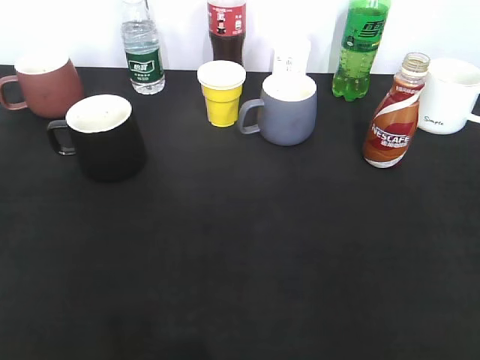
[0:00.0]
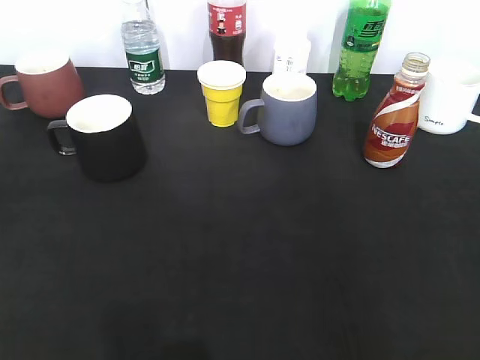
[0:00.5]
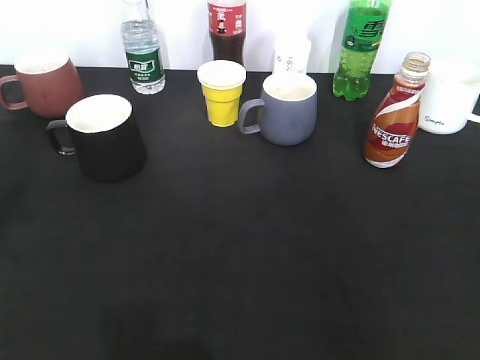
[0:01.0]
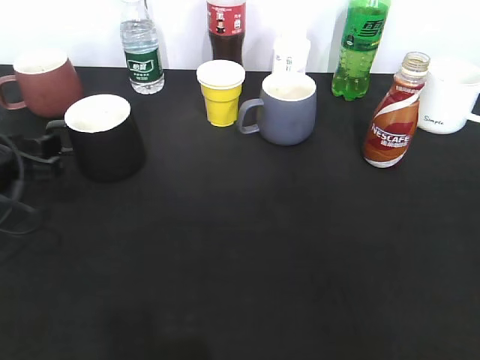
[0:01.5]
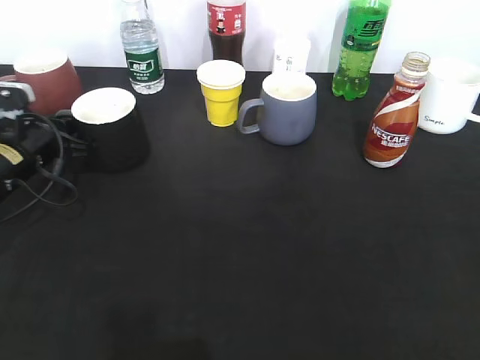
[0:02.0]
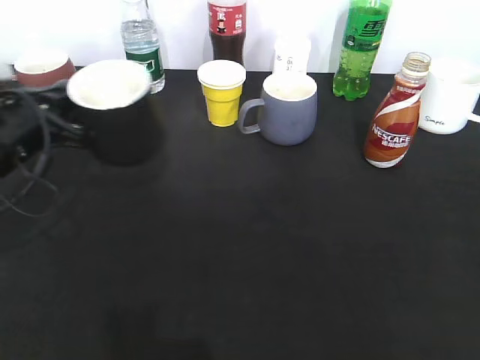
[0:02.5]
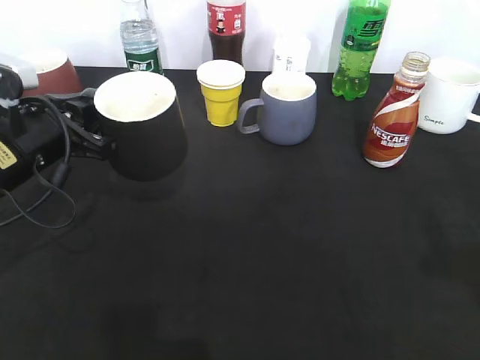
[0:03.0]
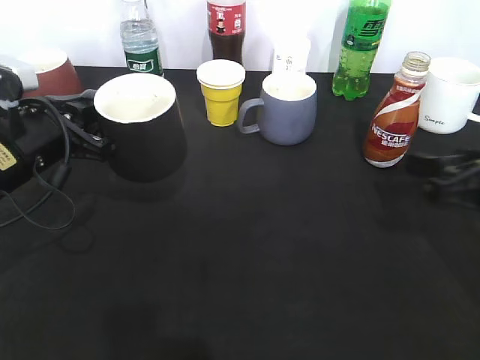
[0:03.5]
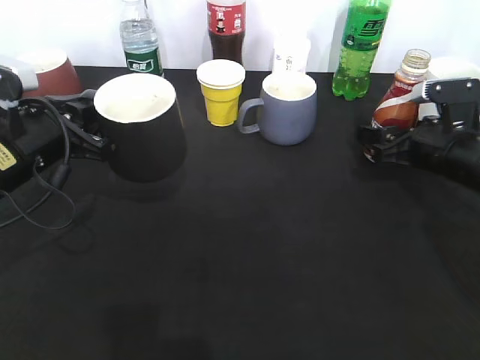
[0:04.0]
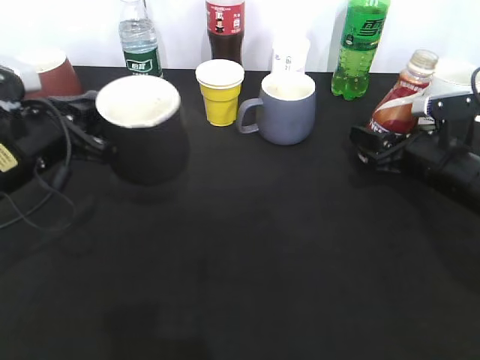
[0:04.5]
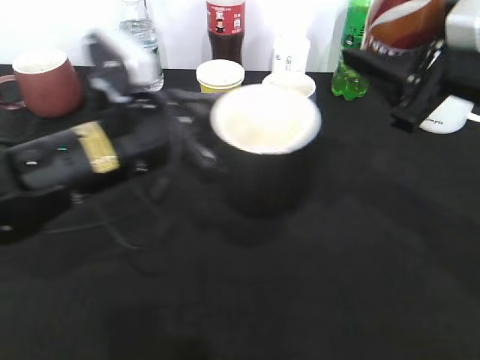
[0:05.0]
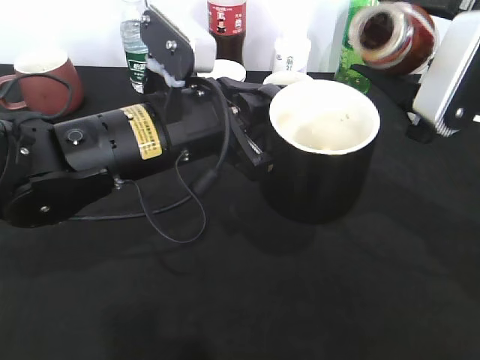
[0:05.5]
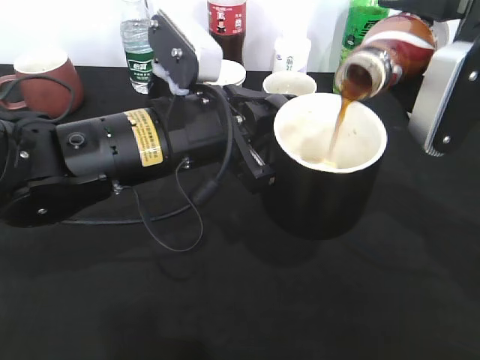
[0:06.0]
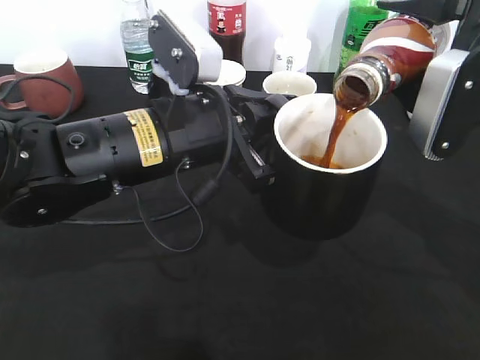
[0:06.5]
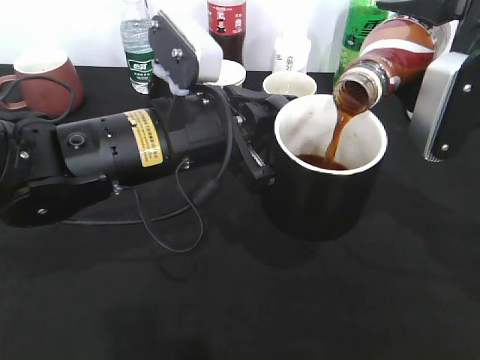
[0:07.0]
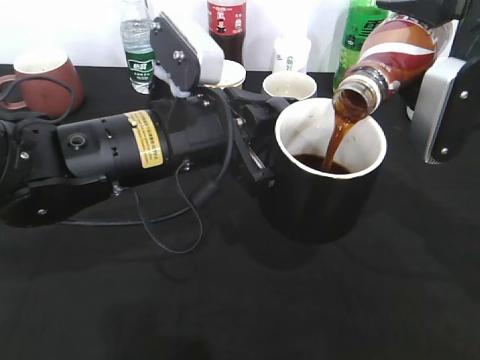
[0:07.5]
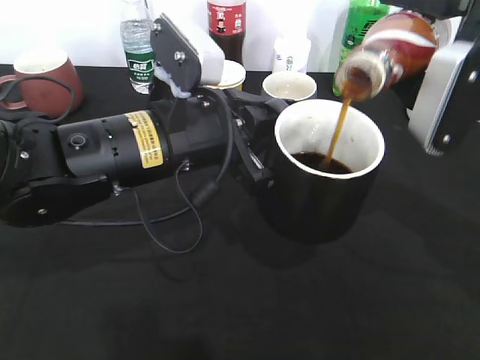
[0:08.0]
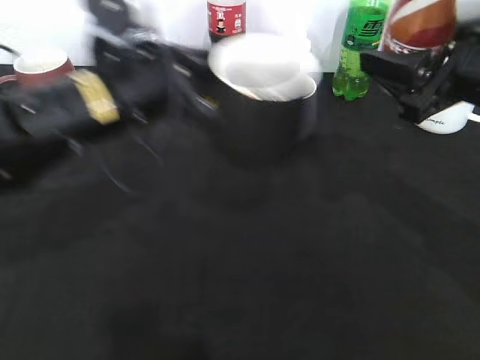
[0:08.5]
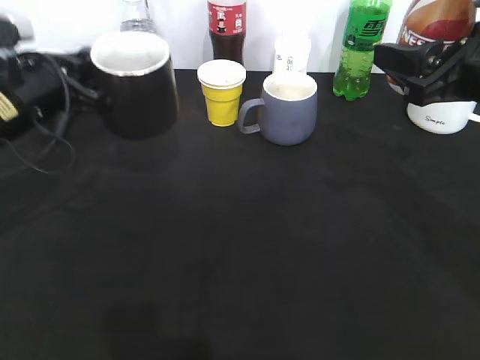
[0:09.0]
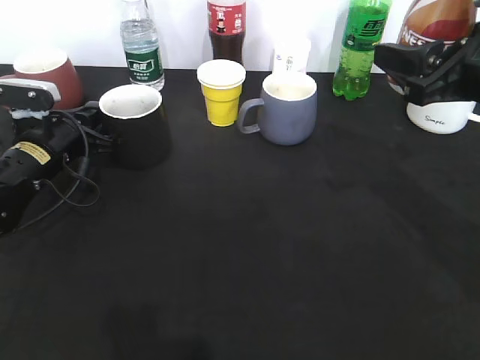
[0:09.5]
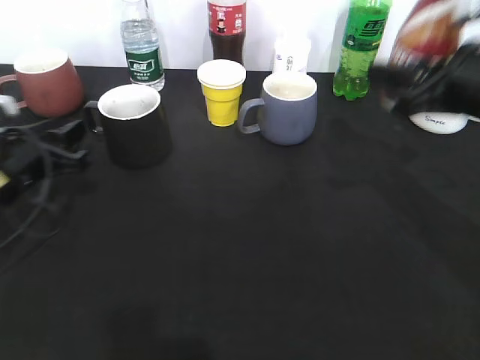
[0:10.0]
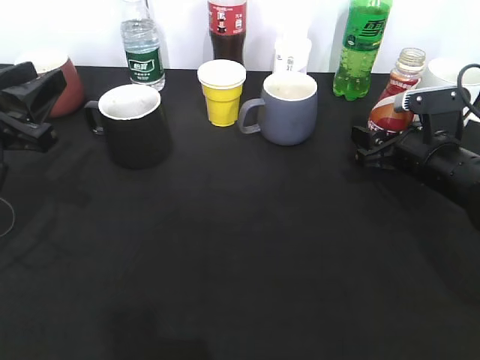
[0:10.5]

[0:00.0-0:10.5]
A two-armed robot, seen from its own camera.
Step, 0:00.0 to 0:02.0: Grasp the black cup with left gripper.
Step, 0:03.0 to 0:04.0: Grasp the bottle with coffee with right gripper.
Step, 0:04.5 to 0:08.5: Pour the coffee from bottle to cup with right gripper.
Step, 0:09.0 to 0:10.0: Place the black cup on the table with left gripper.
0:00.0 to 0:02.0: The left gripper goes approximately 40 cm forward and downward, and closes.
0:02.0 to 0:04.0: The left gripper moves backward and upward, about 10 cm, while the right gripper travels forward and downward by some 35 cm.
0:04.0 to 0:06.5: The right gripper shifts some 15 cm upward and backward, while the left gripper heads to the right, covering approximately 15 cm.
0:06.5 to 0:08.5: The left gripper ends up roughly 5 cm from where it was.
0:08.5 to 0:10.5: The right gripper goes approximately 15 cm downward and forward. The left gripper travels to the left by roughly 15 cm, and opens its fingers.

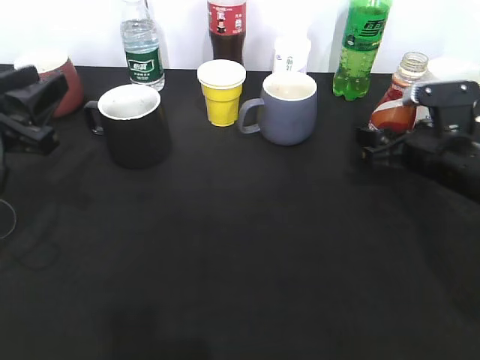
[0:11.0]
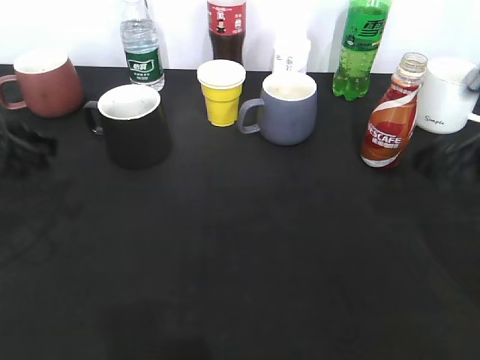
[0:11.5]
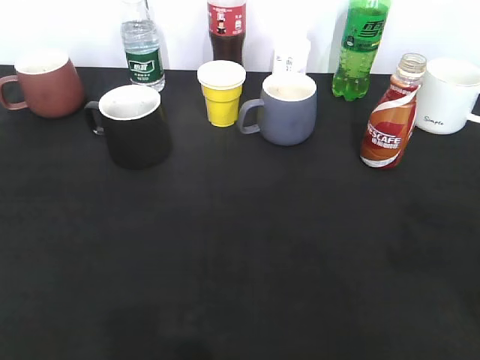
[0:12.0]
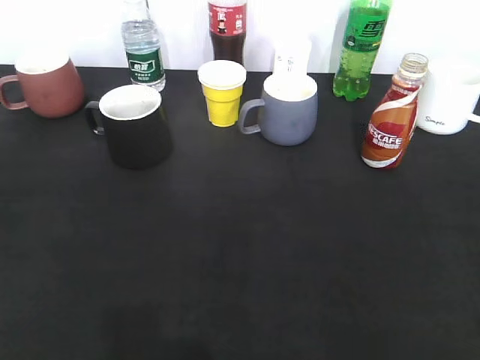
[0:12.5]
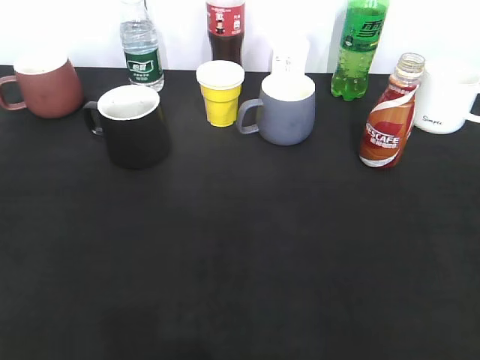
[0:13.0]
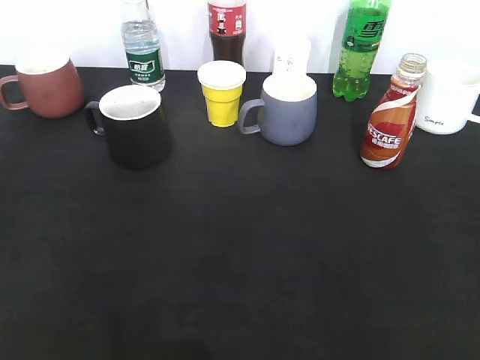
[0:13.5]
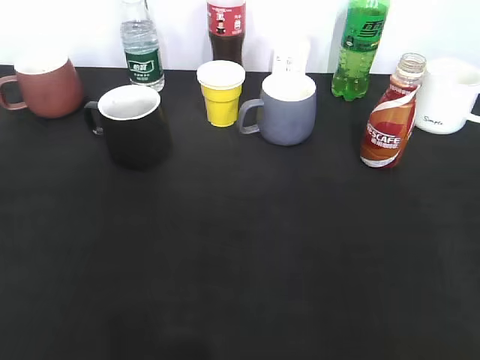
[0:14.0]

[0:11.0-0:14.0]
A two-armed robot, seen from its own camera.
0:11.0 to 0:12.5: The left gripper shifts some 25 cm backward. Meanwhile the right gripper shifts about 35 cm backward and upward.

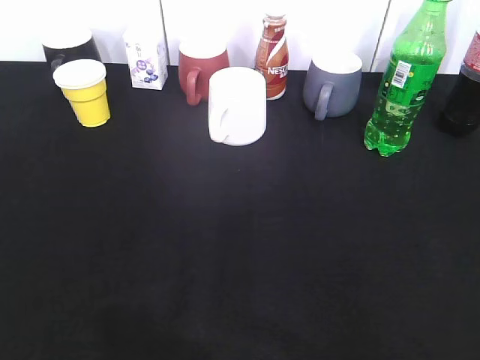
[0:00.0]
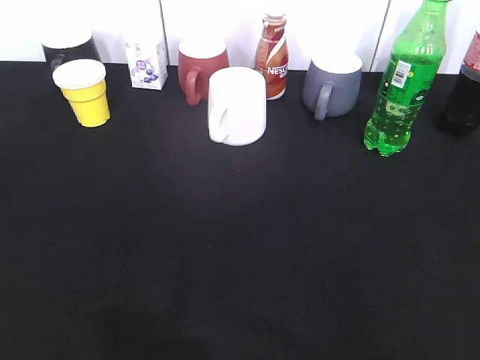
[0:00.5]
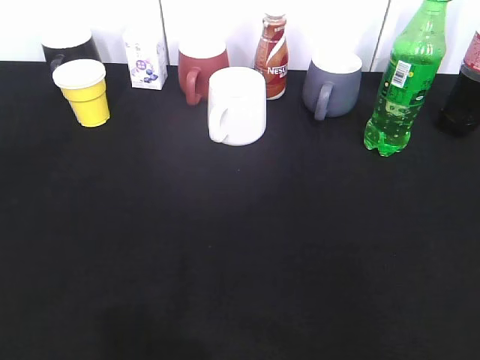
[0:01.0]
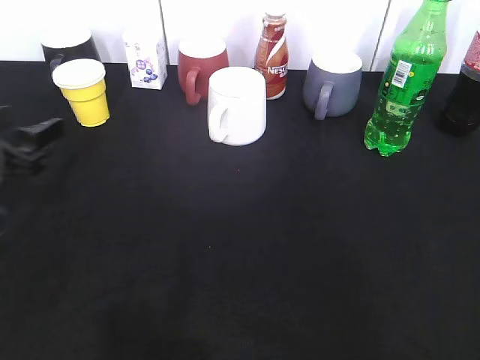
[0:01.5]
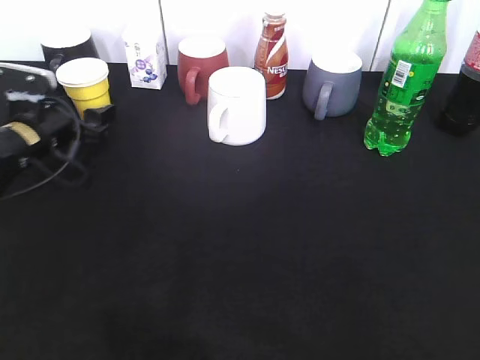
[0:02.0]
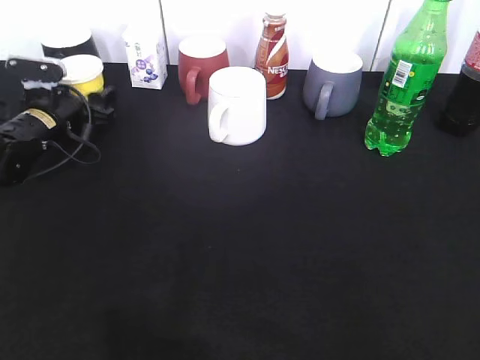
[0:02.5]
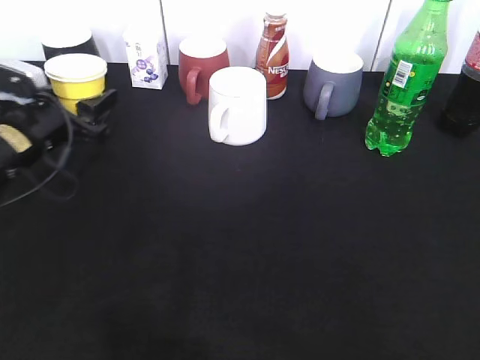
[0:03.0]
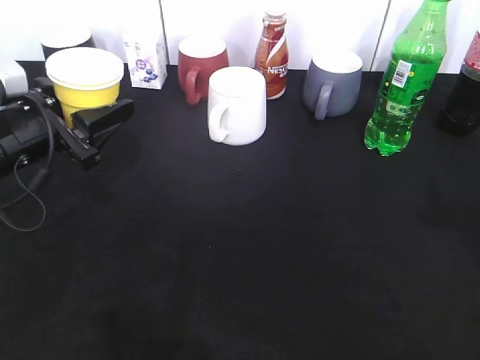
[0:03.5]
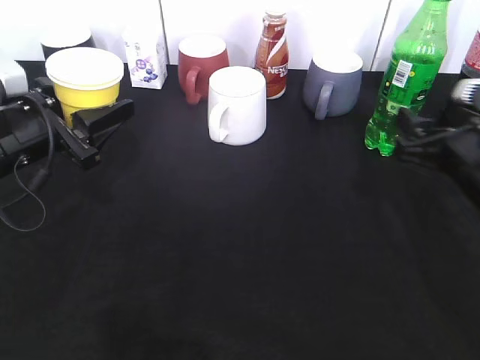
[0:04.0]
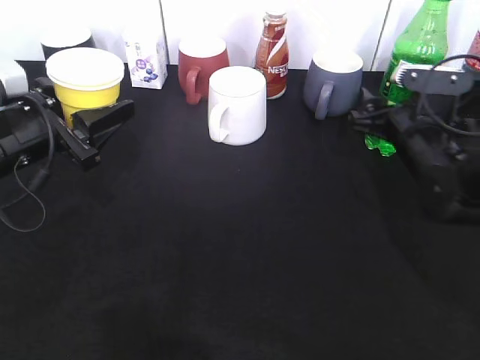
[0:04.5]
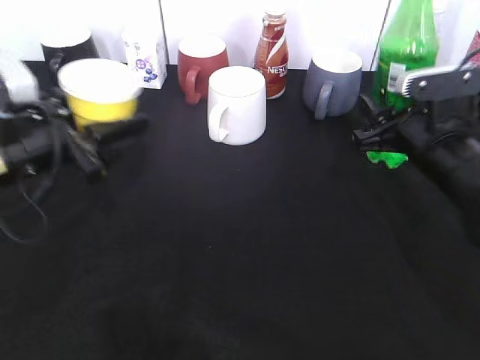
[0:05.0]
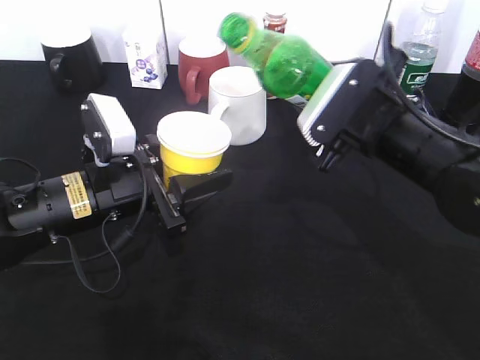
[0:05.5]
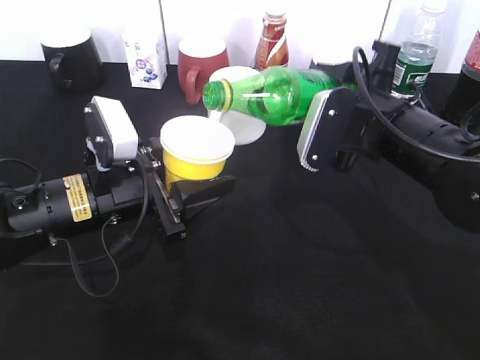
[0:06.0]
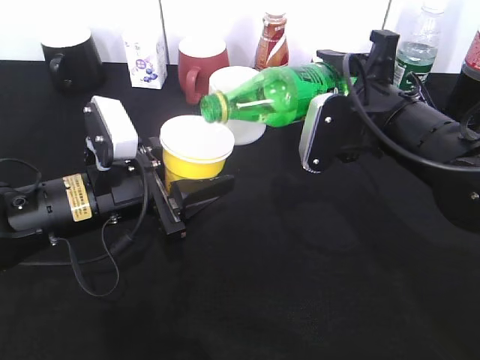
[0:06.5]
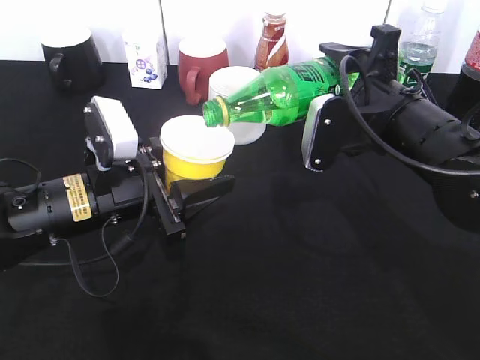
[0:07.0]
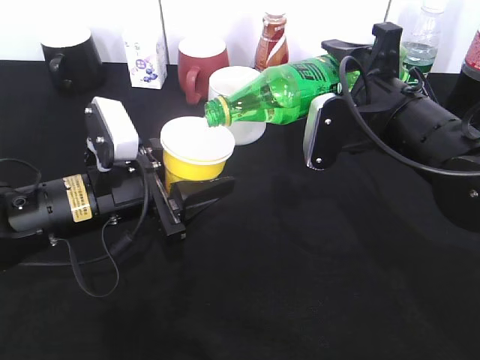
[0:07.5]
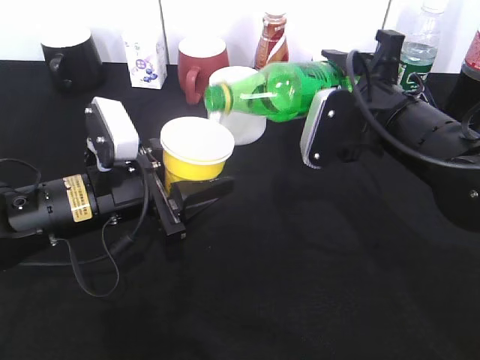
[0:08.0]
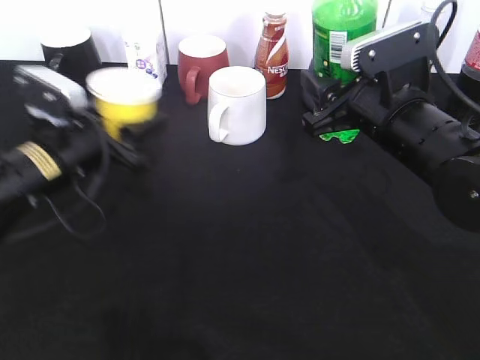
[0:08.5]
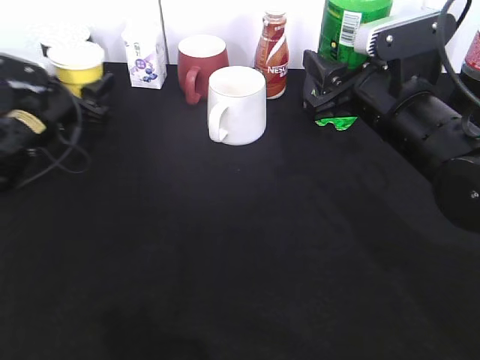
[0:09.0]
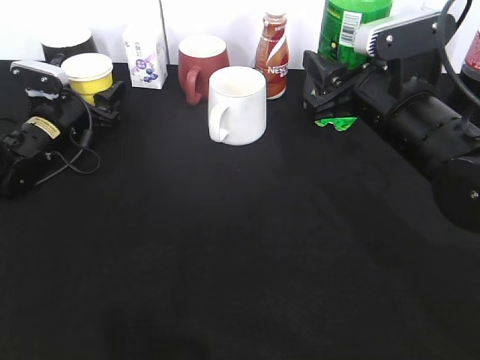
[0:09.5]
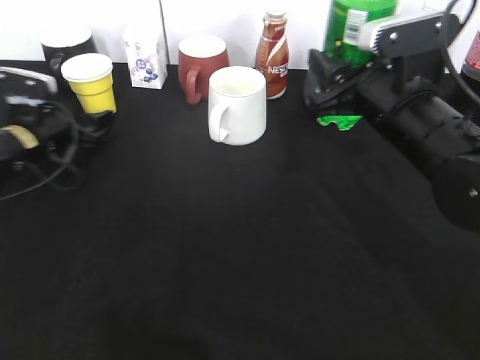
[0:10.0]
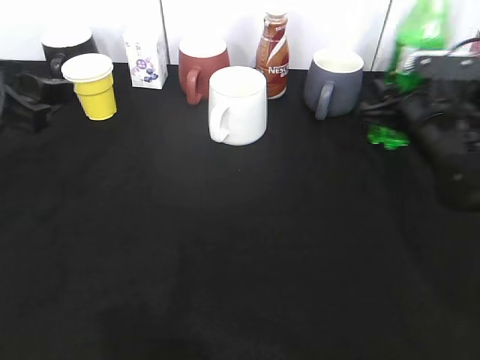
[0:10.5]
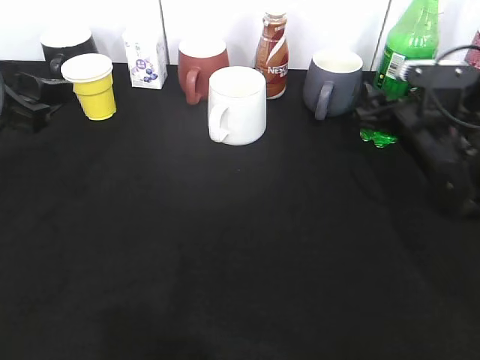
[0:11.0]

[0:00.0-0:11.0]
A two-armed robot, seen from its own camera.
Step, 0:00.0 to 0:02.5: Grasp the yellow paper cup with left gripper.
Step, 0:03.0 to 0:03.5: Lift the yellow paper cup with left gripper.
Step, 0:04.0 to 0:04.5: Grasp the bottle with sprite with right gripper.
Step, 0:05.0 to 0:08.0: Pour the sprite from bottle to cup with right gripper.
0:00.0 to 0:02.0: The left gripper heads forward and downward, covering about 40 cm.
0:02.0 to 0:03.5: The left gripper is displaced backward and upward by some 10 cm, and closes.
0:03.5 to 0:05.5: The right gripper heads to the left and forward, covering about 20 cm, and closes up. The left gripper moves to the right, some 10 cm.
0:07.5 to 0:09.0: The left gripper goes approximately 20 cm forward and to the left.
0:09.0 to 0:11.0: The left gripper heads backward and upward, covering approximately 25 cm. The right gripper is displaced downward, to the right and forward by roughly 10 cm, and opens its fingers.
